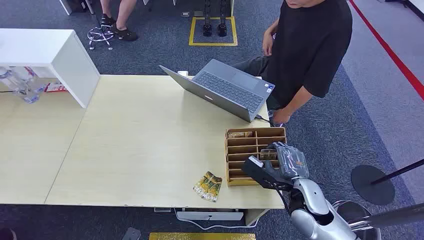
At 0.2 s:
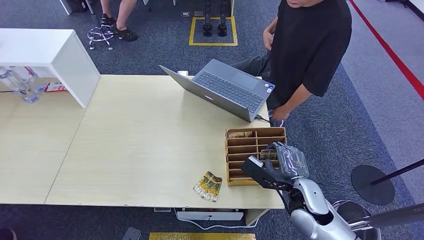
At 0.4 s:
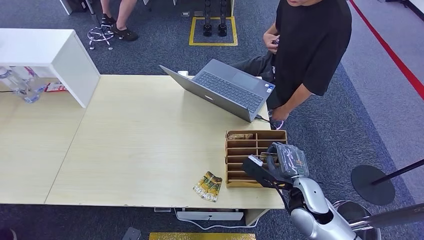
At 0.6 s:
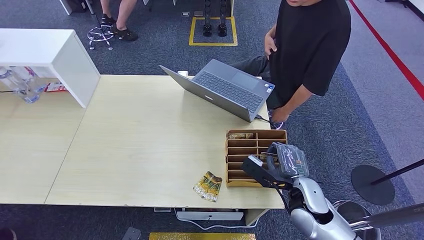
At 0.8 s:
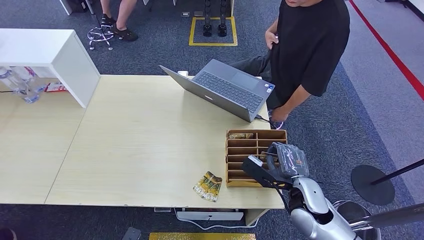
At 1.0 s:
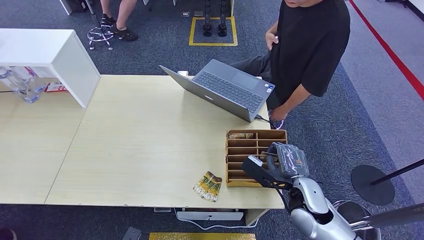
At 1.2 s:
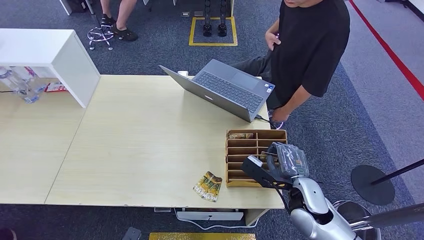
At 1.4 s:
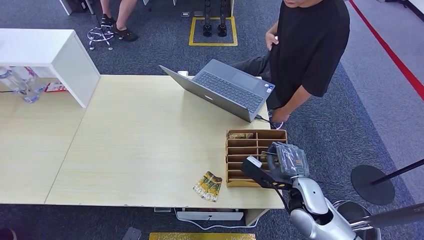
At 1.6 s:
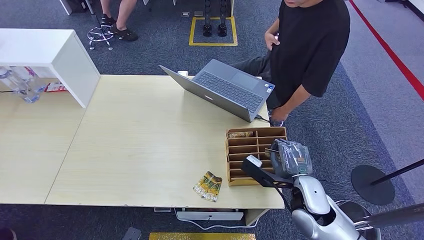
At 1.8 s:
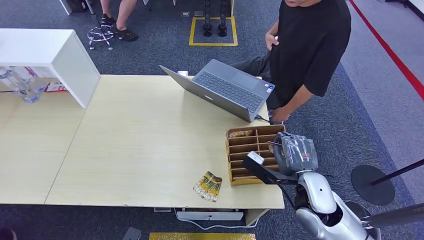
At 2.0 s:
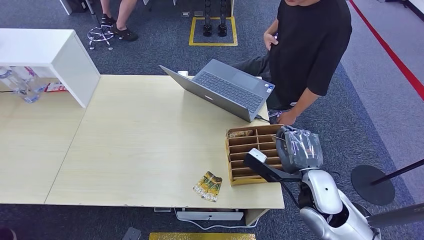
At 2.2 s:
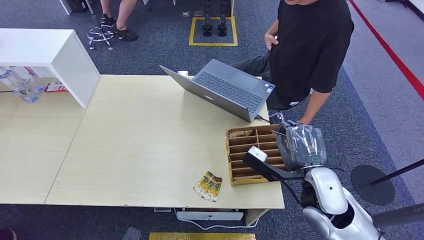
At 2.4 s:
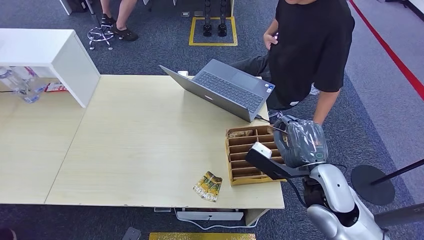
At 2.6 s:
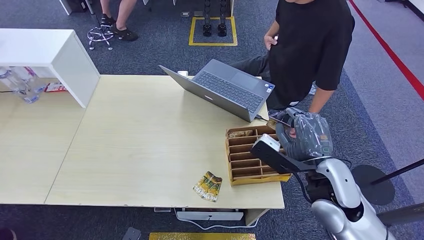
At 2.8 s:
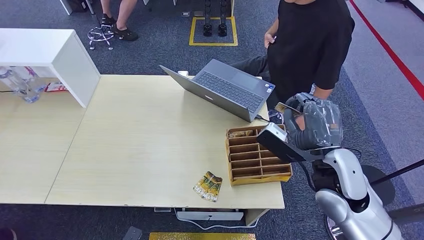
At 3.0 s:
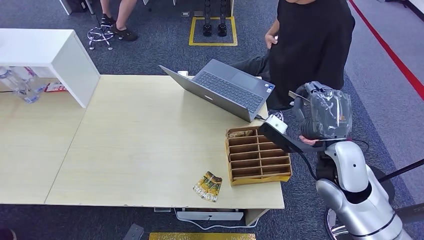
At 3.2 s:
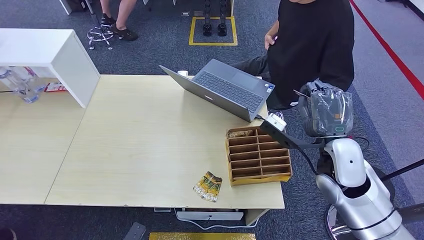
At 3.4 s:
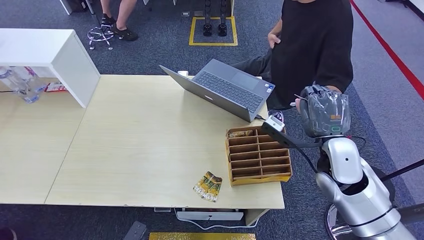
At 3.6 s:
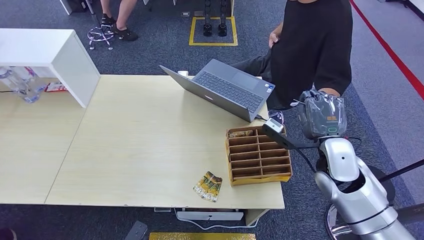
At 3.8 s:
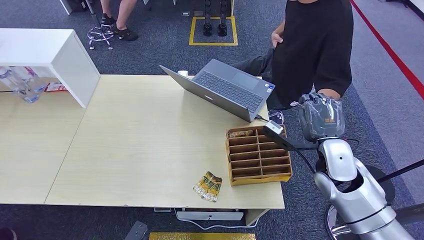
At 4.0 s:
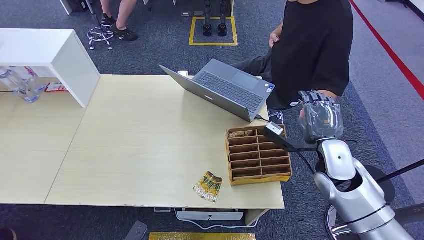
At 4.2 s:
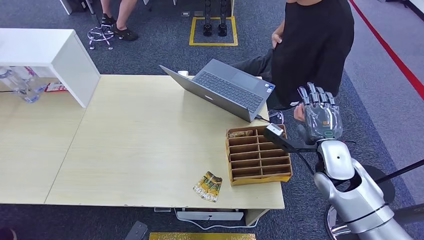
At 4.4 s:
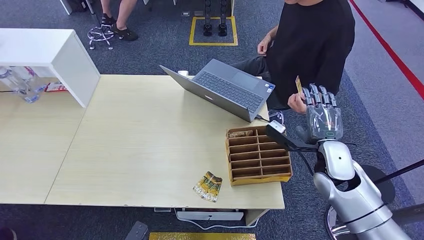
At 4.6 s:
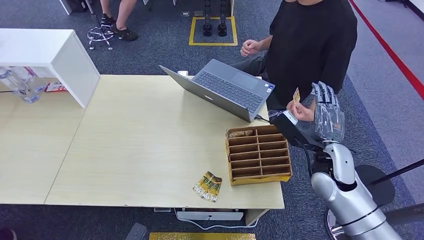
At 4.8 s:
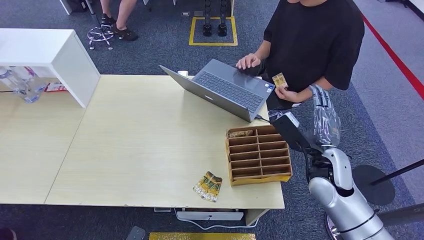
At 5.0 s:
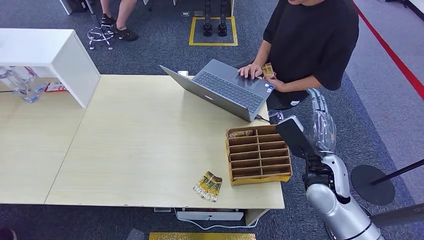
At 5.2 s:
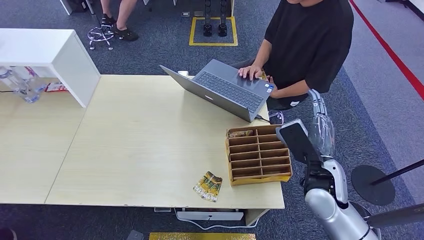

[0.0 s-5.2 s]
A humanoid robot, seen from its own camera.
Step, 0.0 to 2.4 s: Pick up the key card from the card box.
Step, 2.6 to 5.2 s: Hand the key card to the target.
1.8 to 3.4 s: The right hand goes about 10 cm upward and forward.
3.4 to 5.2 s: The right hand changes place by approximately 5 cm.

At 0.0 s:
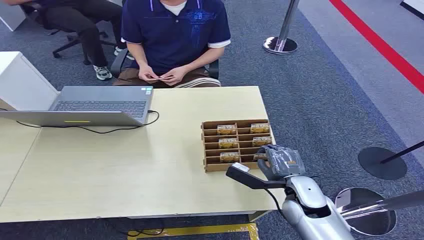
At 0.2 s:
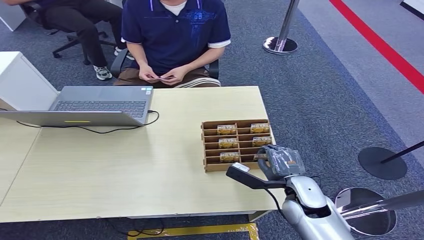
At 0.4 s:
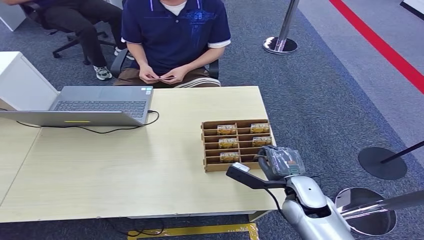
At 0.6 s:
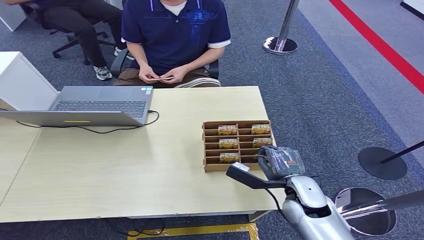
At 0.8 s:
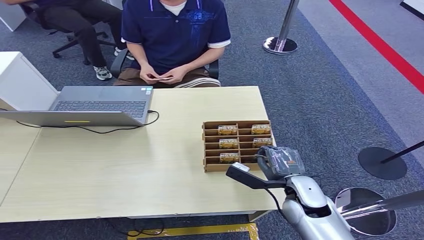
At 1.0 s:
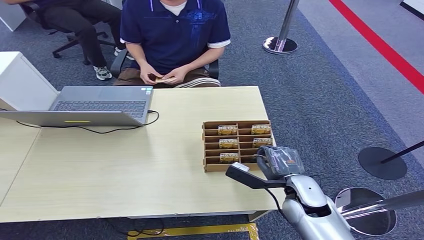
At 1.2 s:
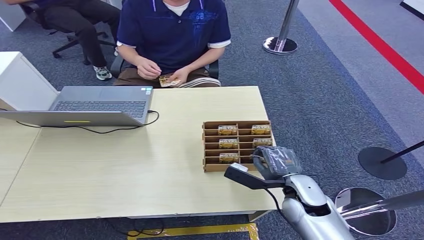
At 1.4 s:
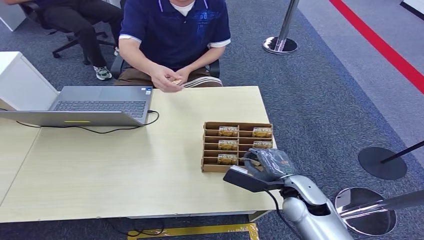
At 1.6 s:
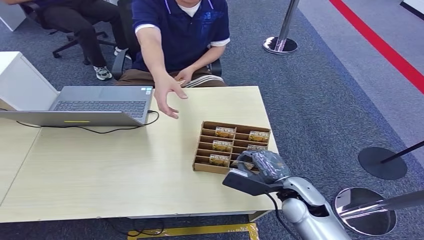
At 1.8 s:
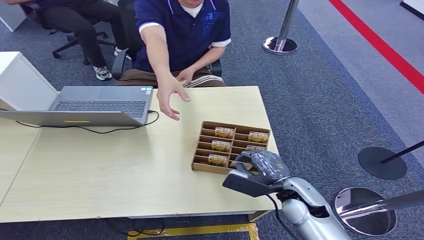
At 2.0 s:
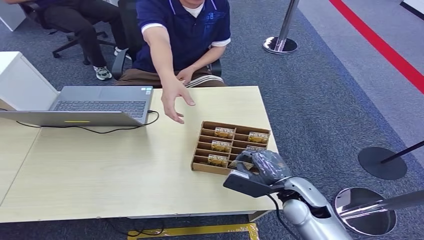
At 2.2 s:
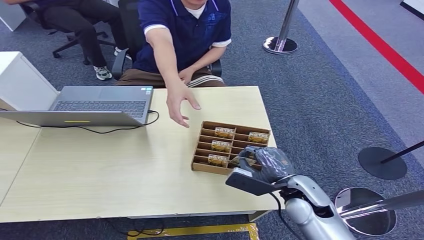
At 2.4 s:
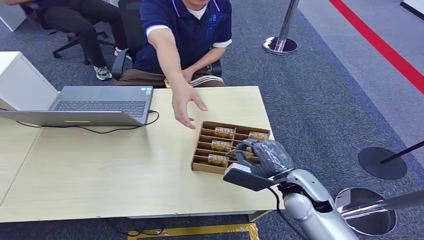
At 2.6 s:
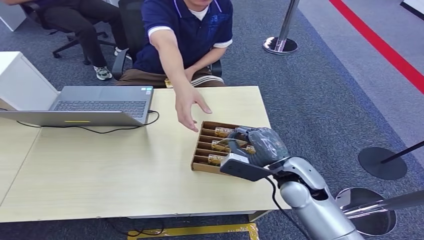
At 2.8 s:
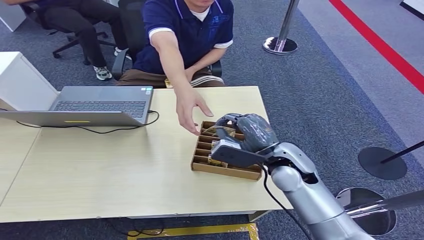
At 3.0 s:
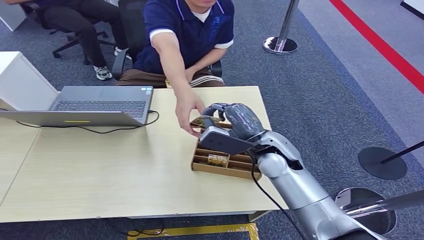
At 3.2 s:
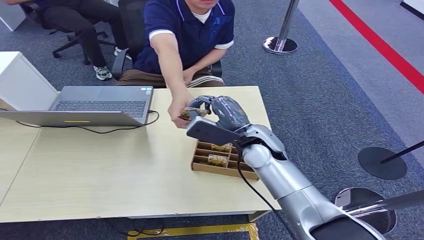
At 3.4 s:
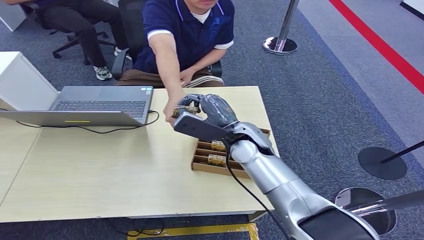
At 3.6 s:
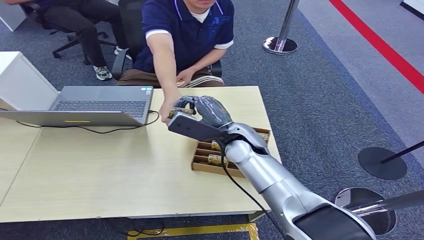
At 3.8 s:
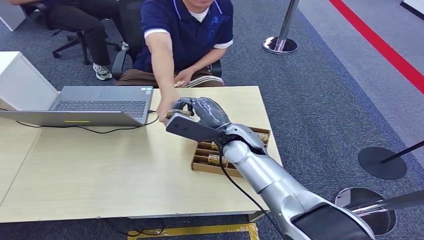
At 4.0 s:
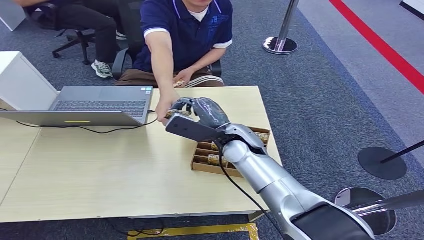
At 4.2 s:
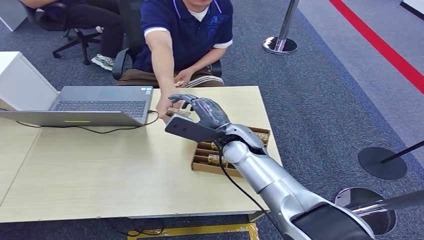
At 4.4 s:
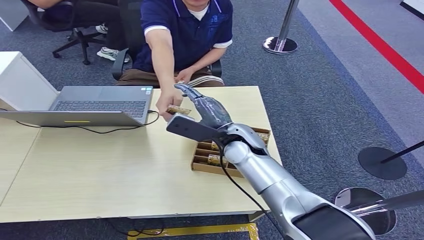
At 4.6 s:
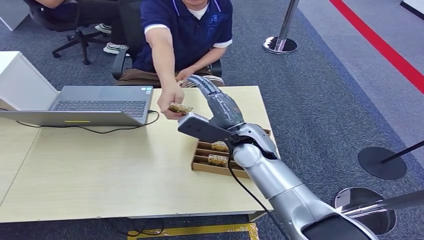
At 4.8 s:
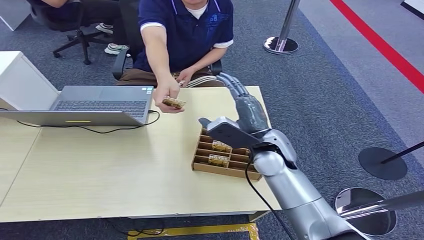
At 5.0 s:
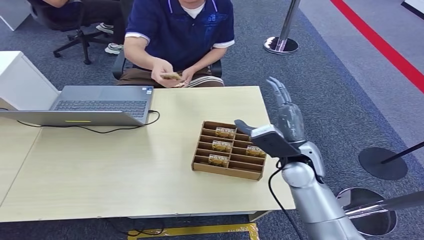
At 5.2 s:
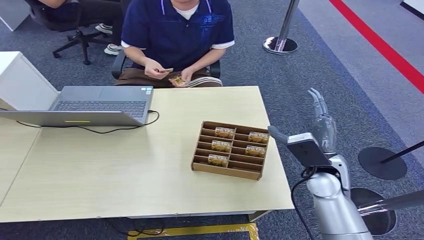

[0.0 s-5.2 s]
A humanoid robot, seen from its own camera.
Step, 0.0 to 2.2 s: Pick up the key card from the card box.
Step, 2.4 to 5.2 s: Hand the key card to the target.
1.8 to 3.4 s: The right hand goes some 20 cm forward, to the left and upward.
3.4 to 5.2 s: The right hand moves to the right and backward, about 15 cm.

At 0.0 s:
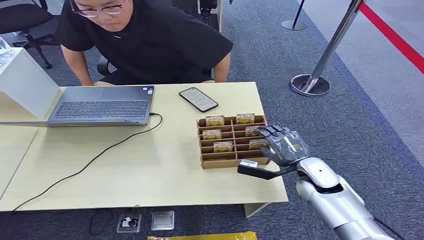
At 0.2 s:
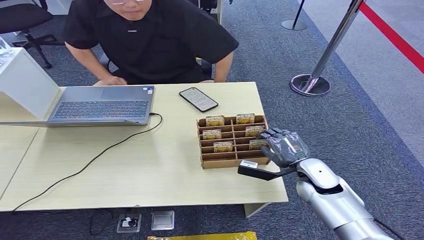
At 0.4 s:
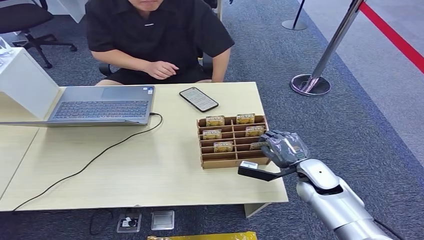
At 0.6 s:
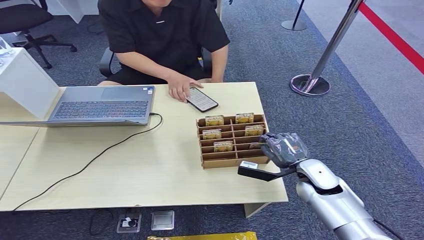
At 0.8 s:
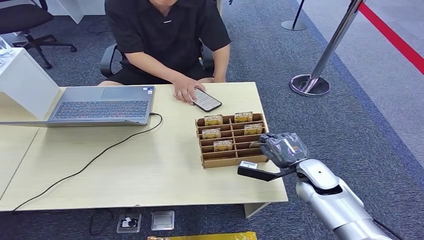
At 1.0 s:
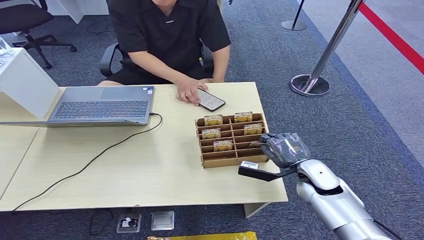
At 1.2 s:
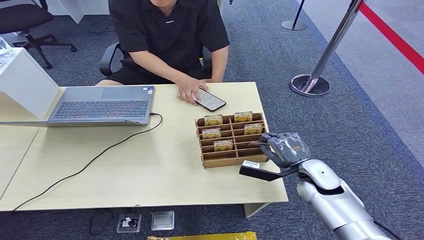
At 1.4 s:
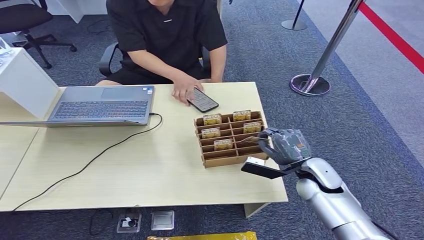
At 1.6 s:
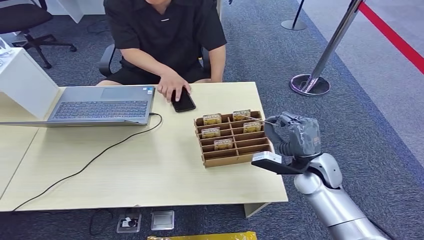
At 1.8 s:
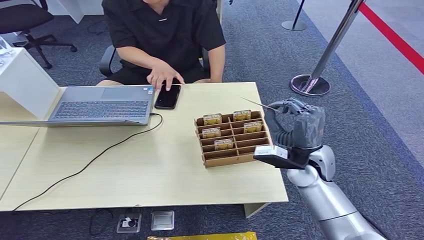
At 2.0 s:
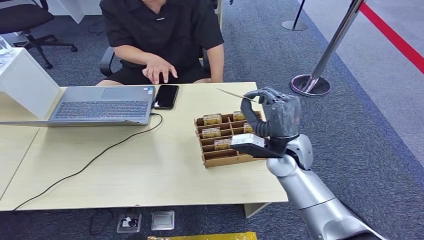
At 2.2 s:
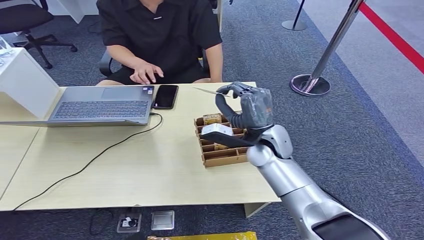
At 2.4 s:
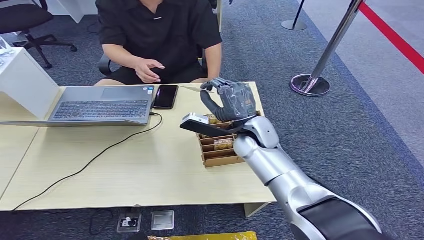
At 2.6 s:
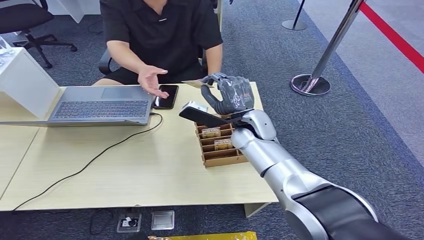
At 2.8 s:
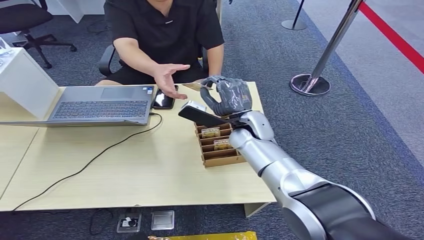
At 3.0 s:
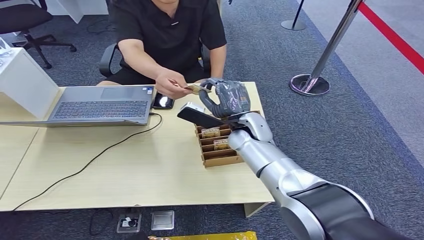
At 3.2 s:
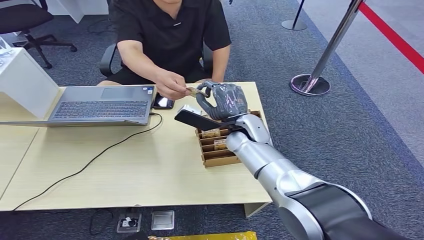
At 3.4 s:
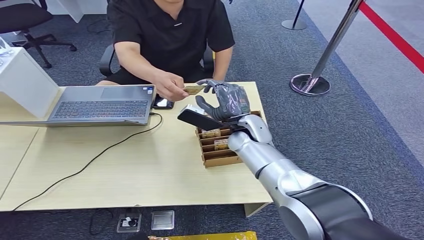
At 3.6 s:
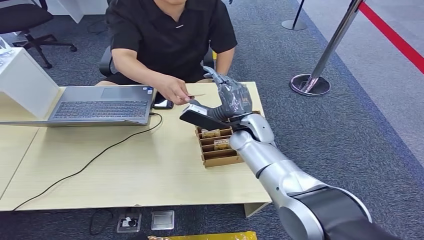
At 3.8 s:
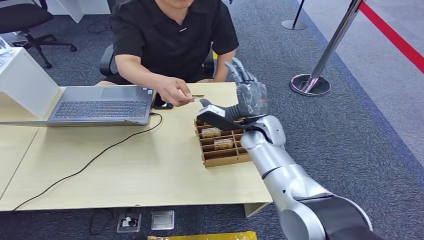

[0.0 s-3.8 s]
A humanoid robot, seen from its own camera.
Step, 0.0 to 1.8 s: Pick up the key card from the card box.
Step, 2.2 to 3.8 s: Hand the key card to the target.
1.2 to 2.6 s: The right hand travels to the left, forward and upward by approximately 20 cm.
2.6 to 3.8 s: The hands move only a little.
